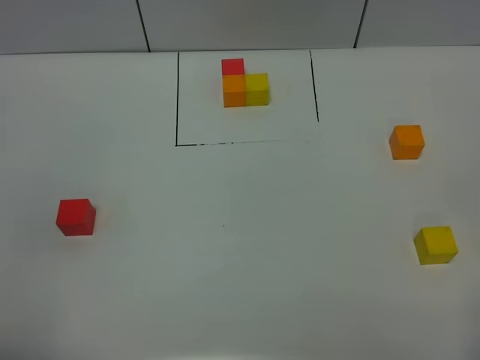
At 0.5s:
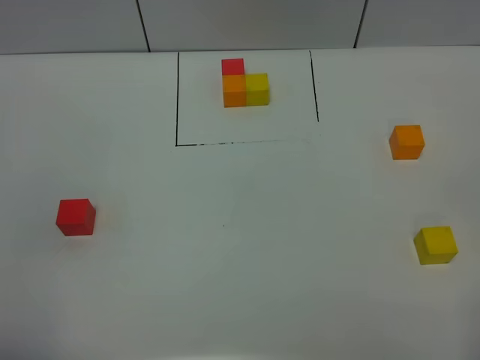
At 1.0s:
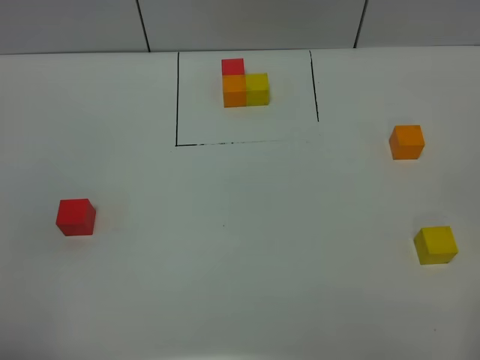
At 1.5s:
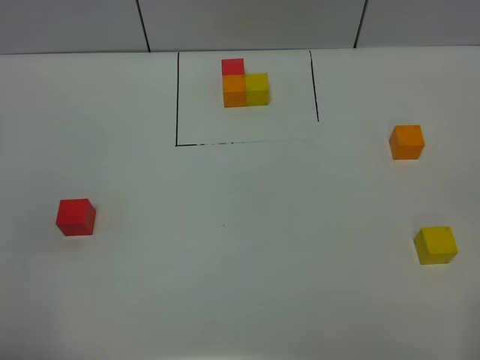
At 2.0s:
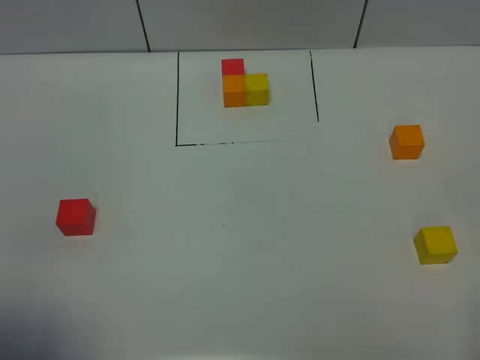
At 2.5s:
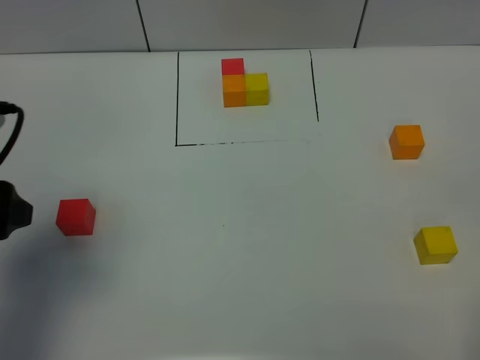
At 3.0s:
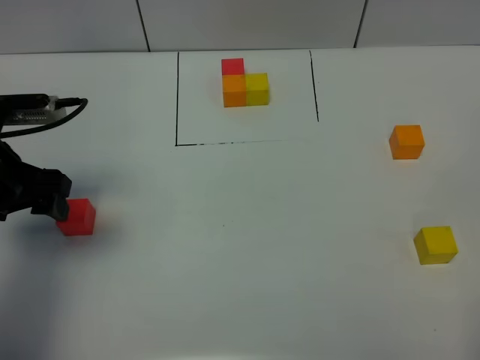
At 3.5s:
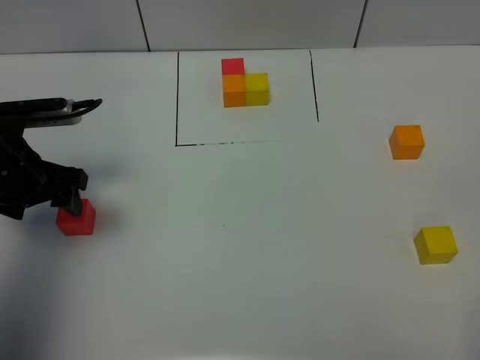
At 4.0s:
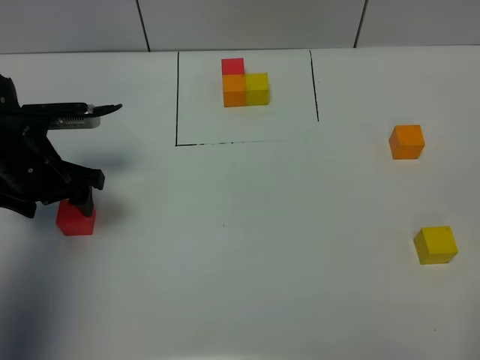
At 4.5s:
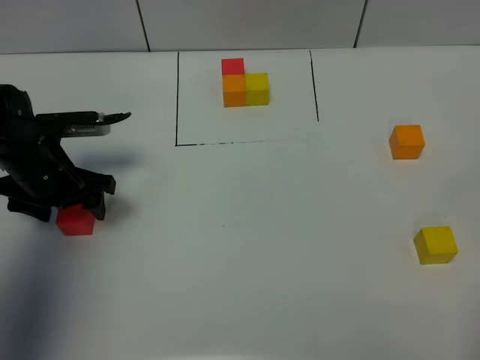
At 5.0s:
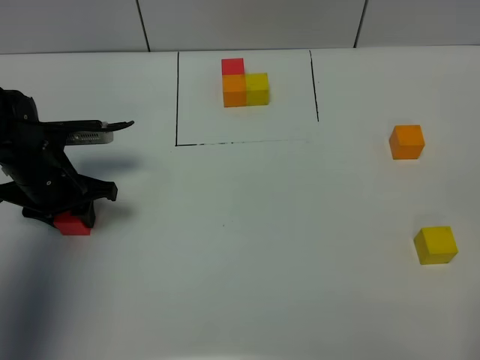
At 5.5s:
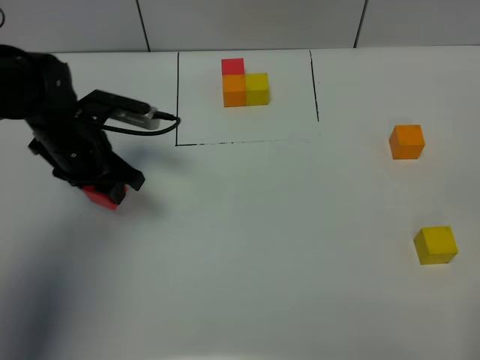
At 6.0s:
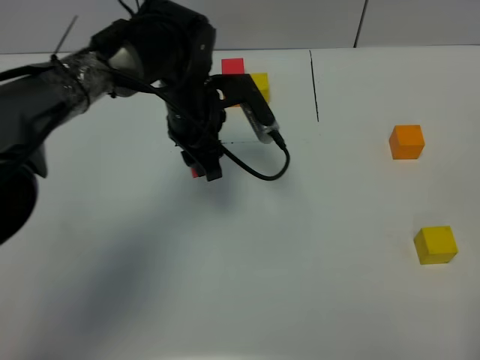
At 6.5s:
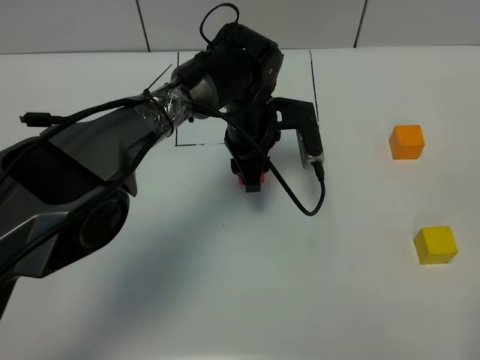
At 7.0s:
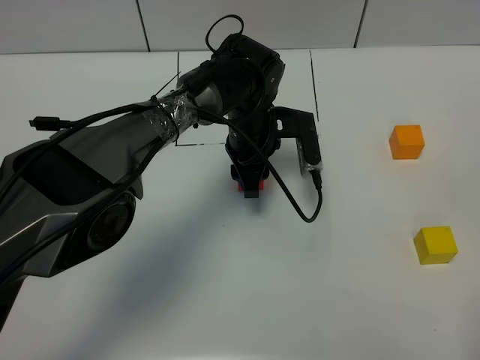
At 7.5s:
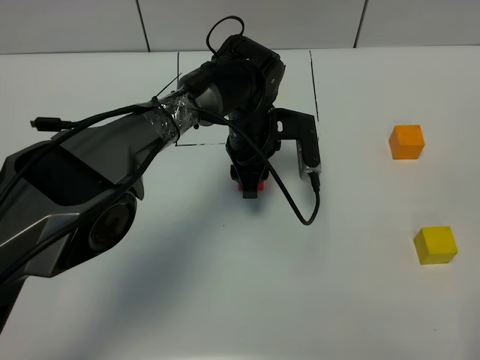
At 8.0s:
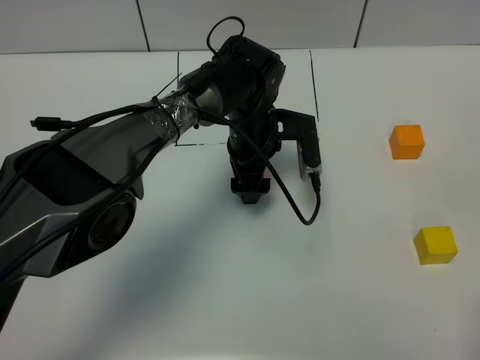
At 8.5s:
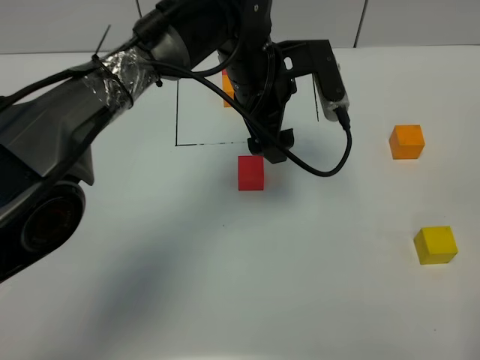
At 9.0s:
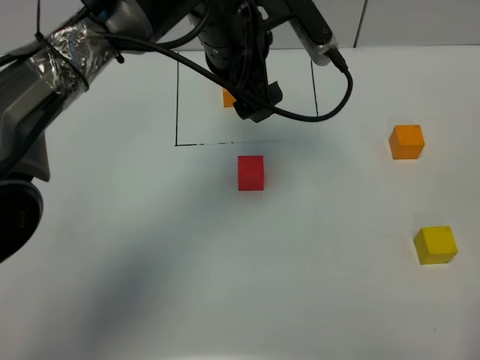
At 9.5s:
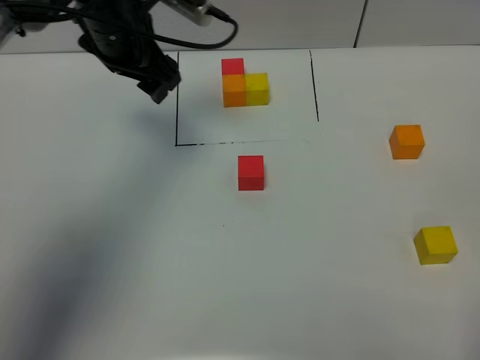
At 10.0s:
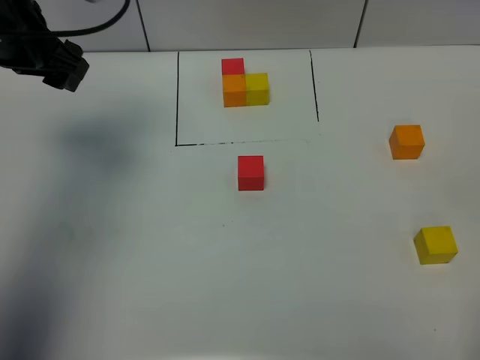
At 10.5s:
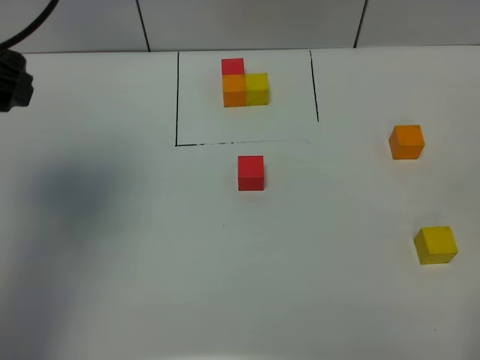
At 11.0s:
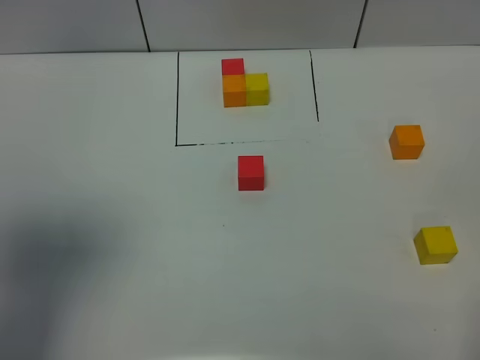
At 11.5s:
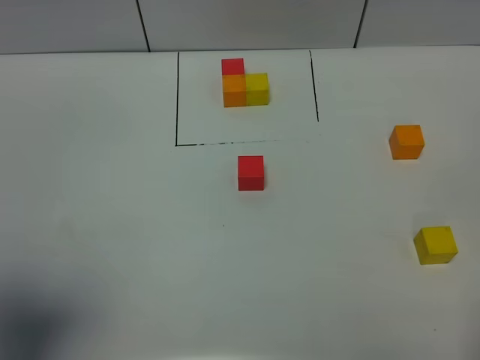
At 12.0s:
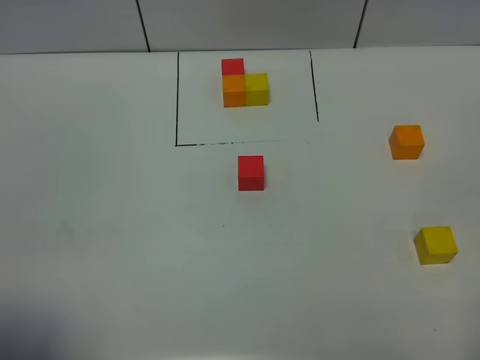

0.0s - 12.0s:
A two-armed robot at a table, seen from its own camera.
Task of the whole recording: According to the building block template in front, assemble the scattered blocks together.
Step, 0.0s - 7.5s: Put the red build block in the center of the table.
0.0s - 2.0s: The left gripper moves approximately 5 cm.
2.0s - 4.0s: The left gripper travels forward and downward by some 30 cm.
4.0s - 6.0s: The left gripper goes roughly 20 cm to the right, and closes.
6.0s - 8.0s: The left gripper heads to the right and downward, covering roughly 10 cm, and opens up.
8.0s - 10.0s: The left gripper heads to the left and upward, covering approximately 30 cm.
10.0s - 12.0s: The left gripper goes approximately 35 cm backward.

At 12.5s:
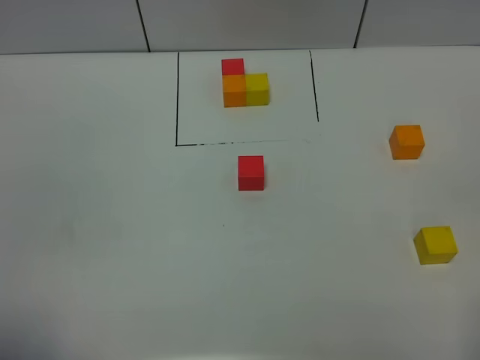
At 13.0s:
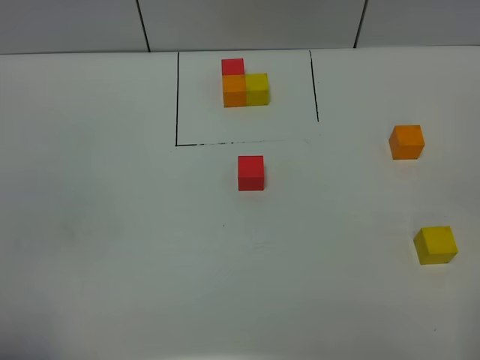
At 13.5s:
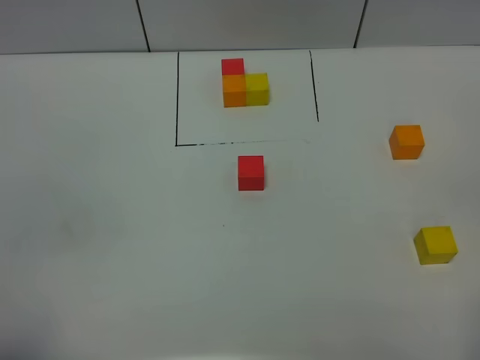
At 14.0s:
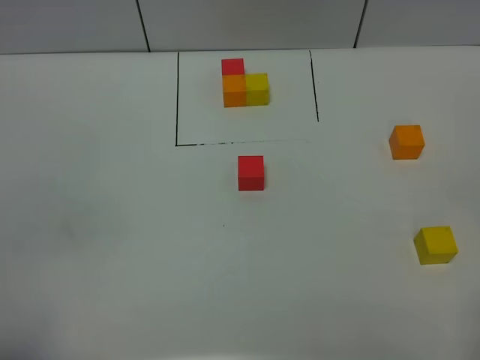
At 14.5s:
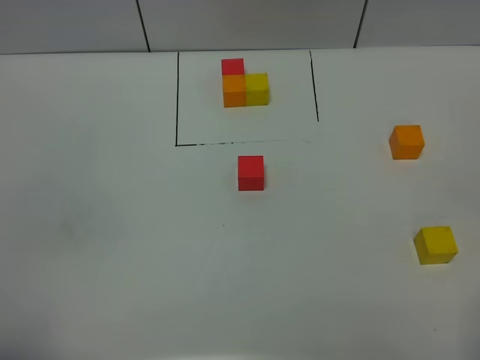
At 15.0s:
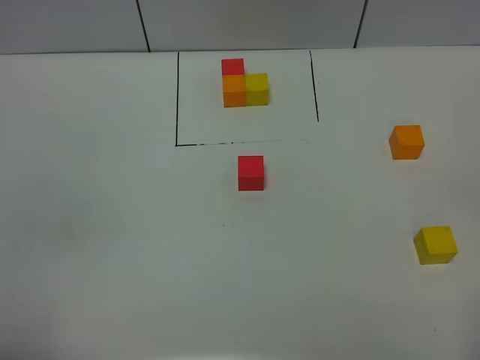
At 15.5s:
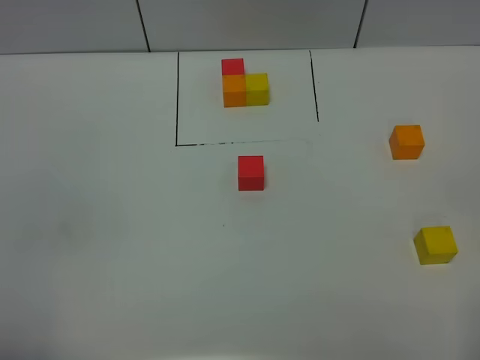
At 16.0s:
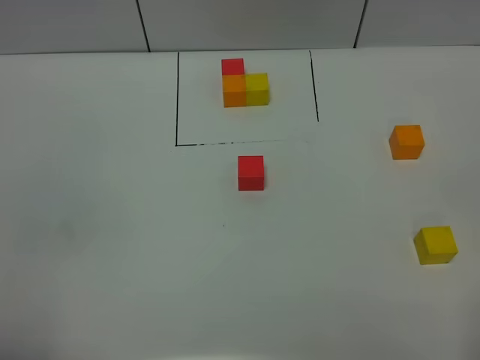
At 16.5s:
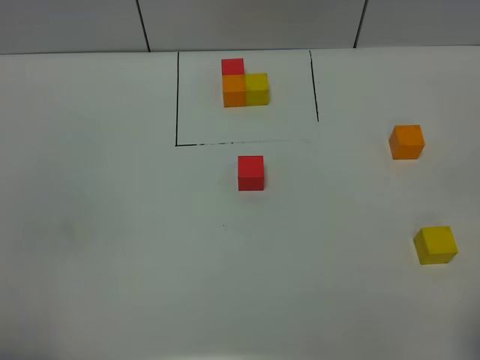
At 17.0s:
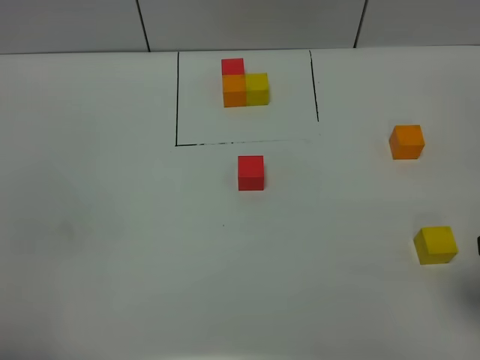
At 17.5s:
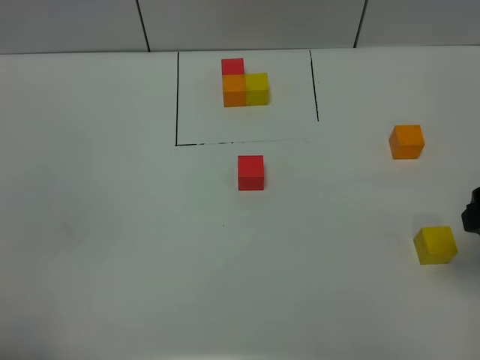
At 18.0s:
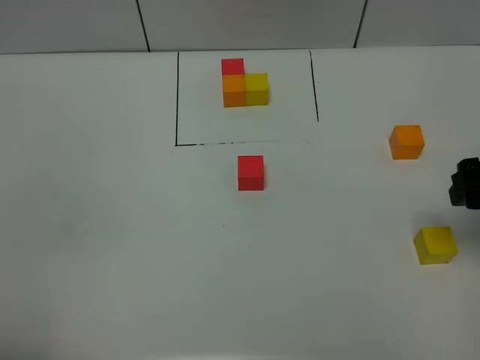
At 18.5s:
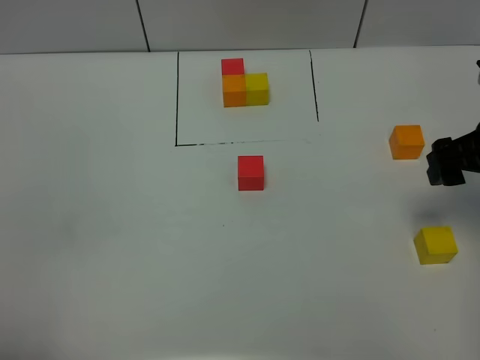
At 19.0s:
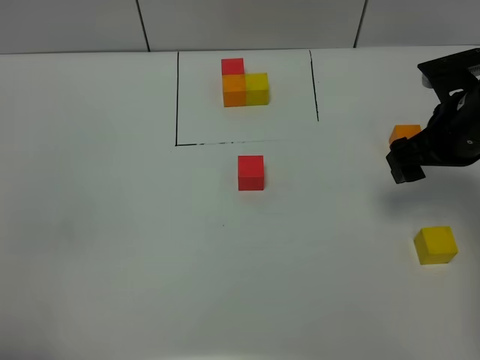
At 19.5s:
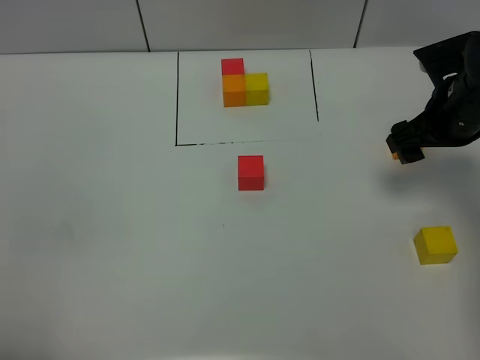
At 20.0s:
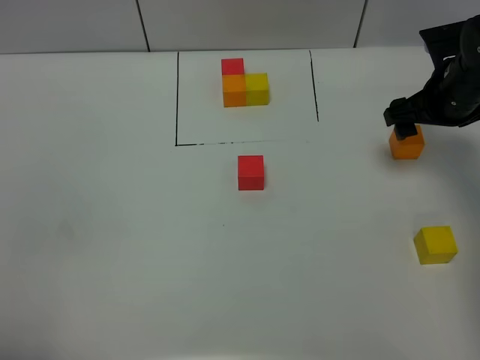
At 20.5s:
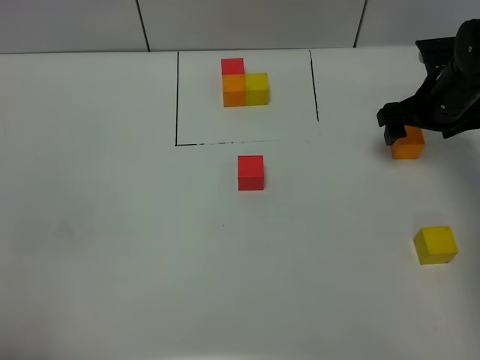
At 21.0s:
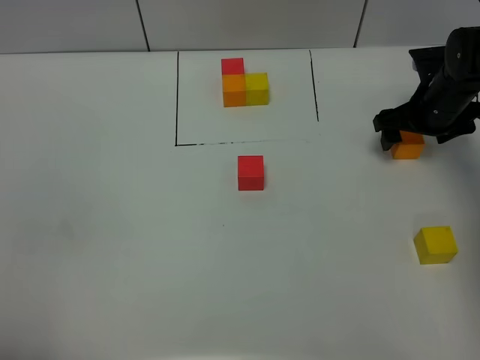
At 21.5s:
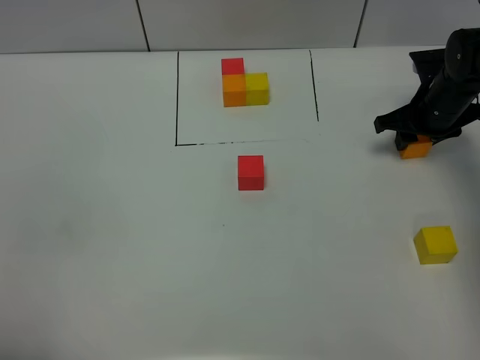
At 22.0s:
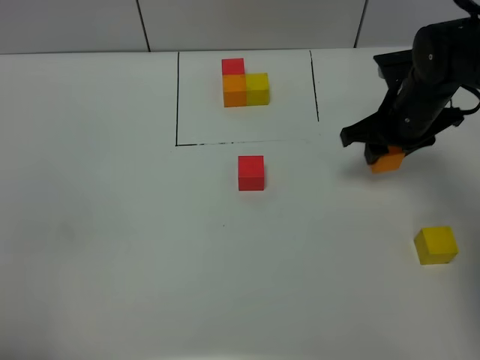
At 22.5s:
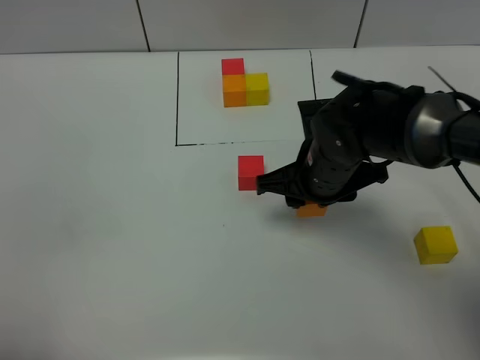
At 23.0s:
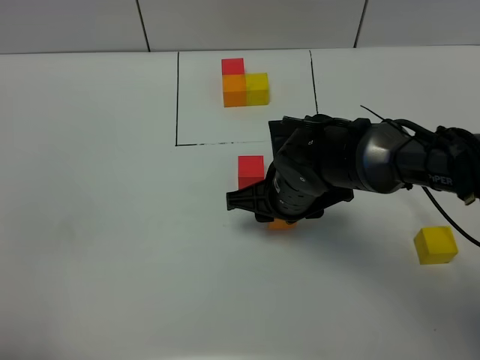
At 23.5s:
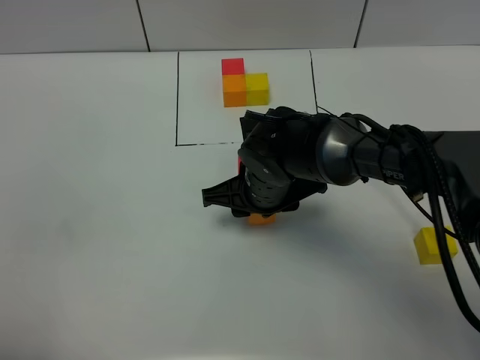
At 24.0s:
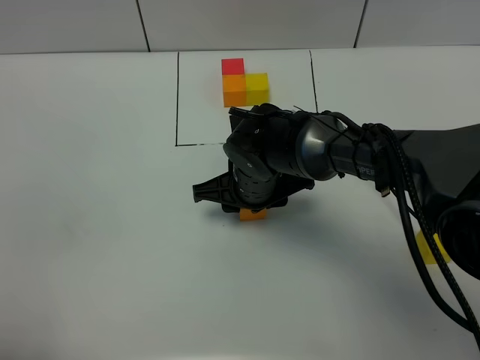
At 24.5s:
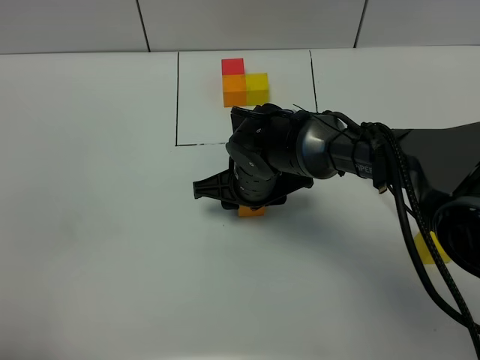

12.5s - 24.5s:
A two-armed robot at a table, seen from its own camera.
Task of the whole recording: According to the building block template in front, assemble the scattered blocks together.
16.5s - 18.5s: The right gripper is displaced forward by some 25 cm.
18.5s - 20.5s: The right gripper shifts roughly 15 cm forward and downward.
20.5s - 22.5s: The right gripper shifts roughly 20 cm to the left and backward, and closes up.
22.5s - 24.5s: The right gripper moves to the left and downward, some 10 cm.

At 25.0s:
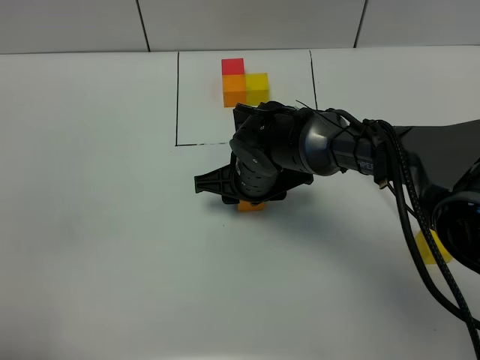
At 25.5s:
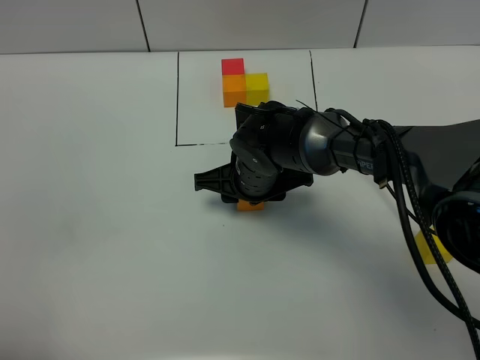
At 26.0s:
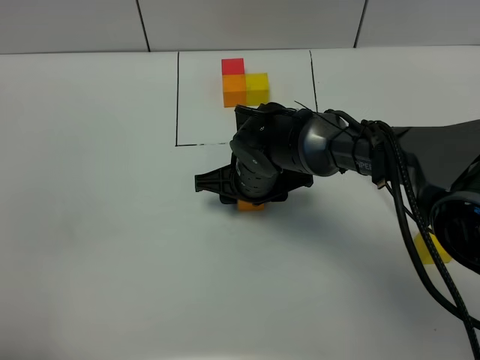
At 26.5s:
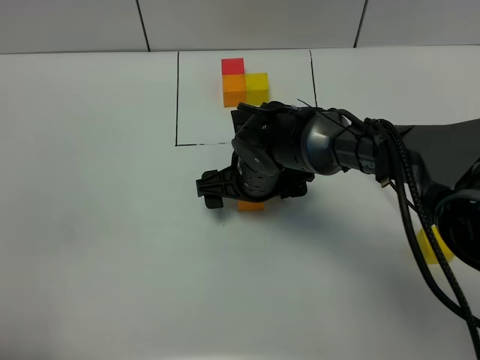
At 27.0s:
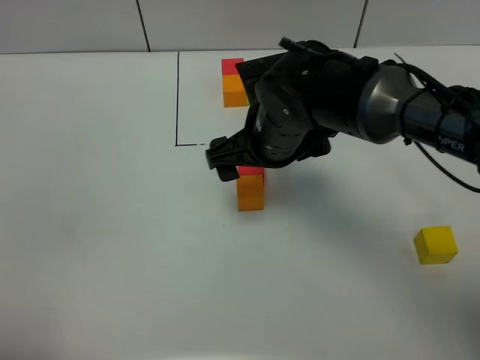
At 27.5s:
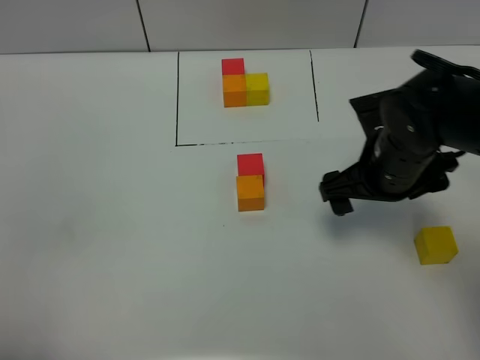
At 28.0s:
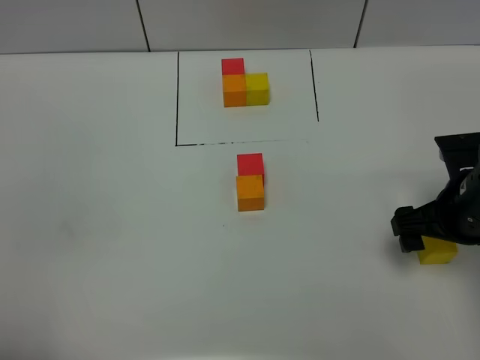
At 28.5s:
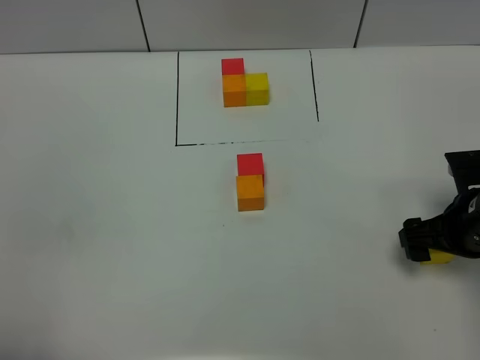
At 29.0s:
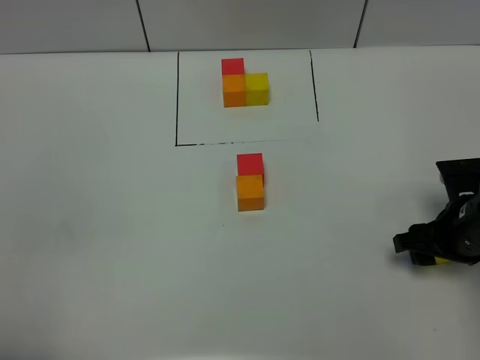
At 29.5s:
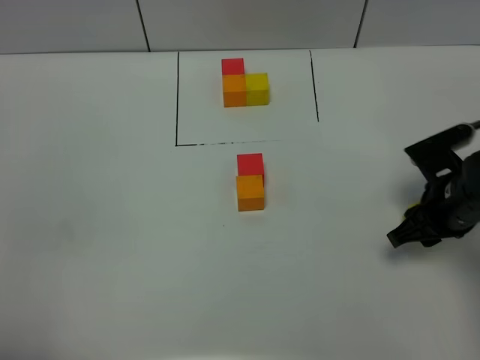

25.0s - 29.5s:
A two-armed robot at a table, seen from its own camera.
Task of the whole recording: According to the building block template in front, assemble the scattered blocks together.
25.0s - 27.0s: The right gripper heads upward, covering some 10 cm, and opens its fingers.
27.0s - 29.5s: The right gripper goes about 20 cm to the right, and closes.
